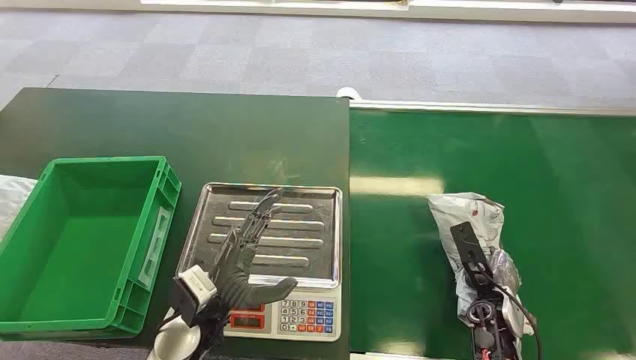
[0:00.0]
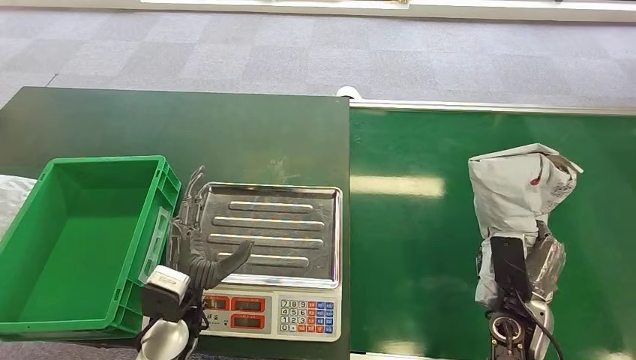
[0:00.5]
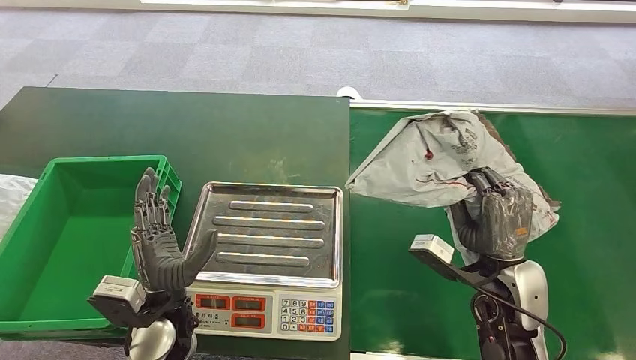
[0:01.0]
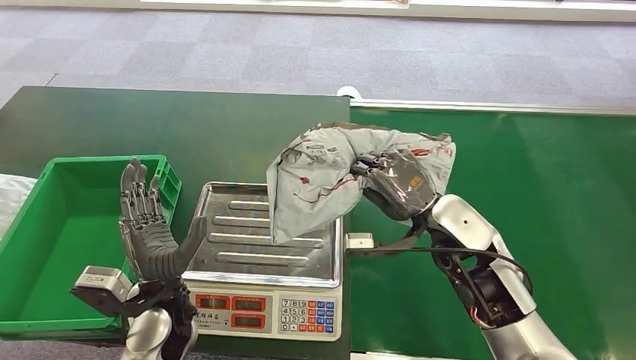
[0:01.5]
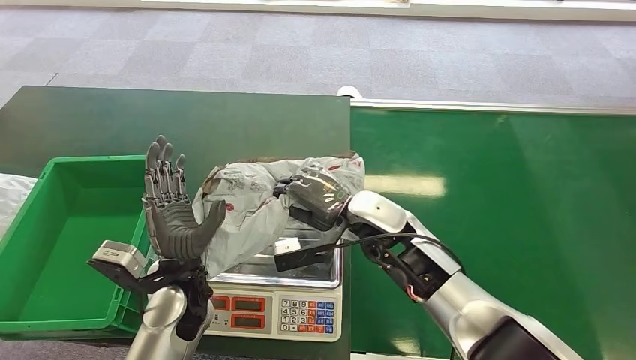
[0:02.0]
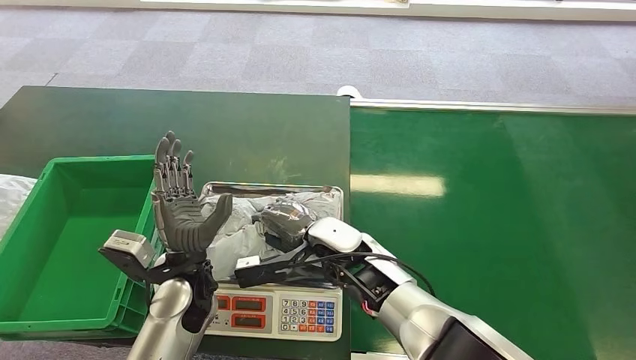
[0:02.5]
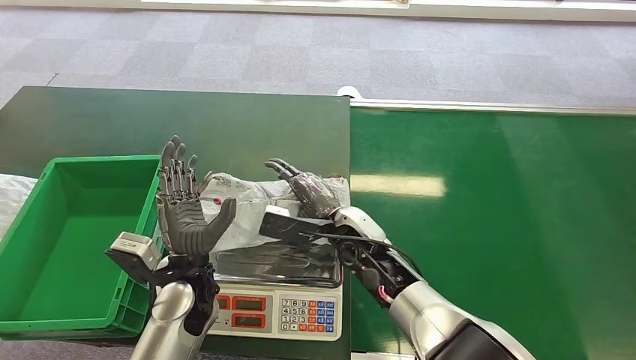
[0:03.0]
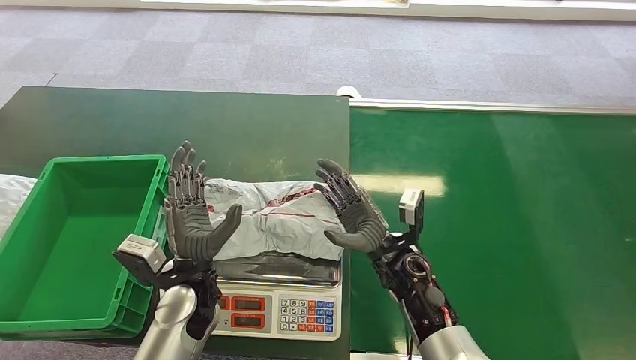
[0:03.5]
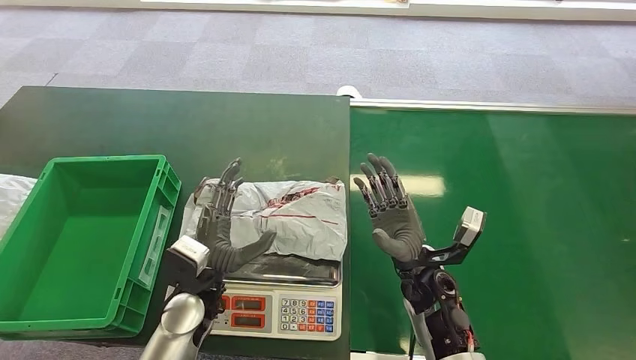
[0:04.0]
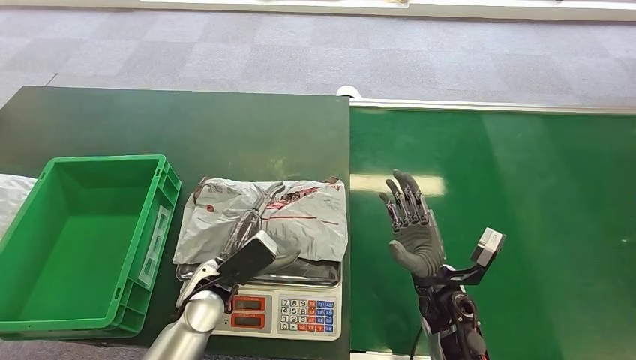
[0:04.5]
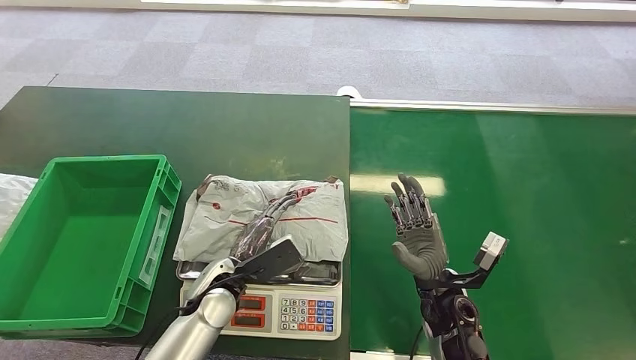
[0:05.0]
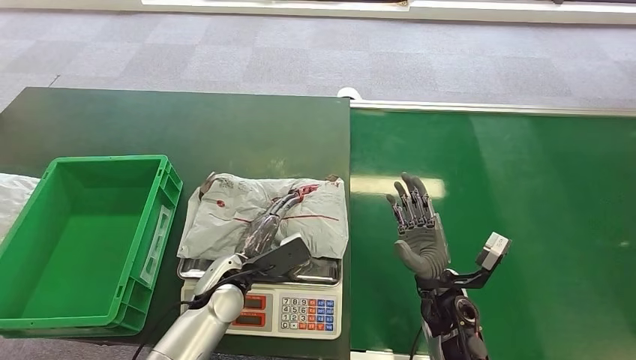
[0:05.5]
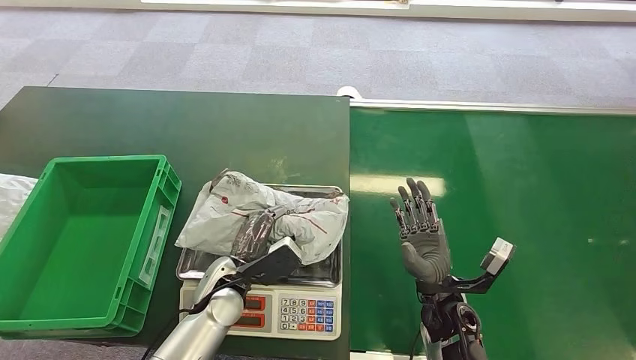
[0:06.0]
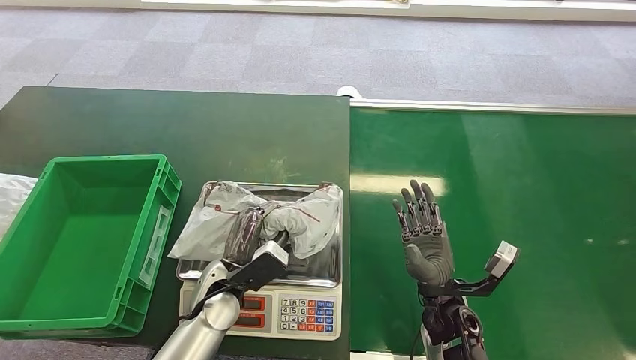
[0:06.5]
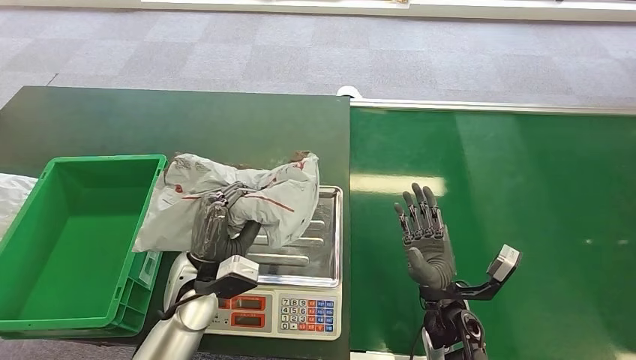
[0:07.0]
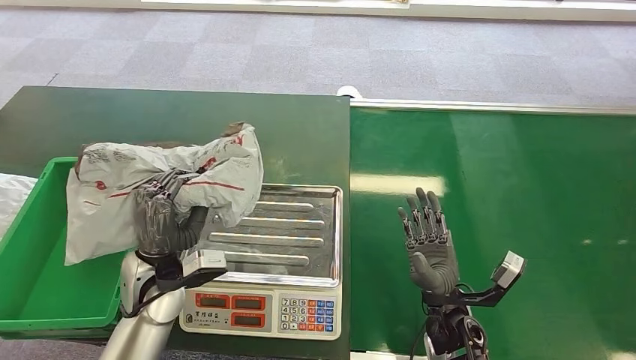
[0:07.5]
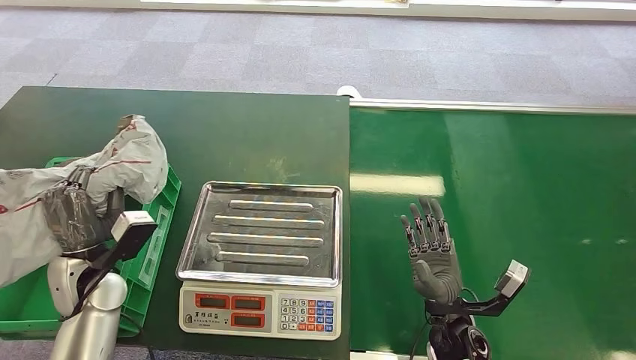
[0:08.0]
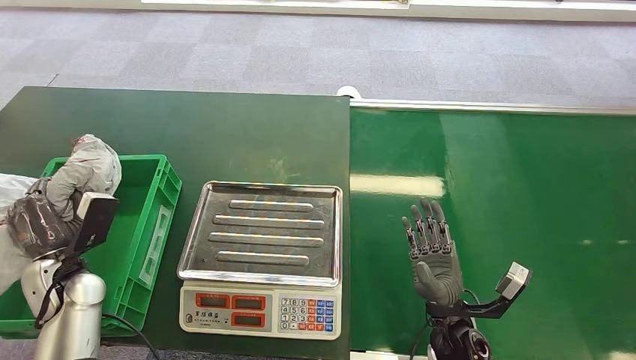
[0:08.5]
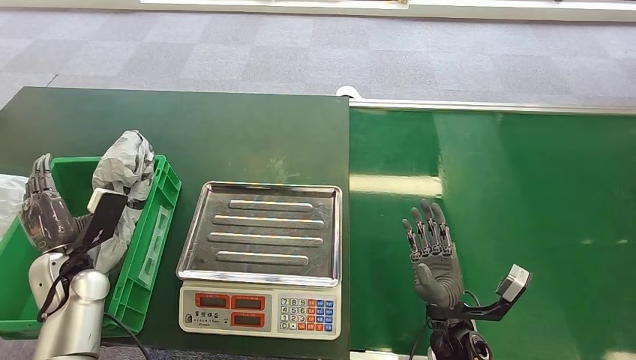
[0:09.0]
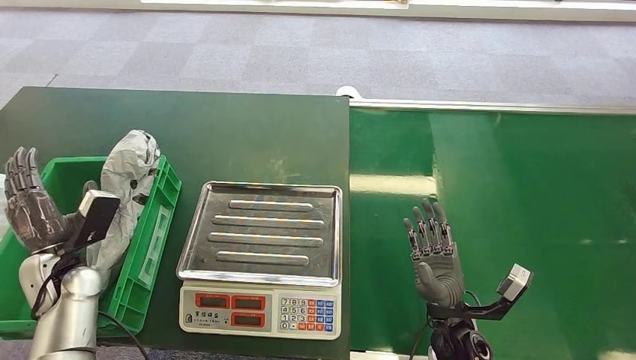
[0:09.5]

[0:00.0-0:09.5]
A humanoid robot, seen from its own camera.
Step, 0:00.0 to 0:01.0: Pick up the package from the conveyor belt.
Step, 0:02.0 to 0:03.0: Place the package onto the inbound machine.
Step, 0:08.0 to 0:09.0: Place the package into the parcel locker.
0:02.0 to 0:04.0: The right hand heads downward, backward and to the right, covering about 10 cm.
0:04.0 to 0:05.5: The left hand changes place by some 5 cm, while the right hand moves approximately 5 cm.
0:07.5 to 0:09.5: The left hand moves to the left, some 20 cm.
